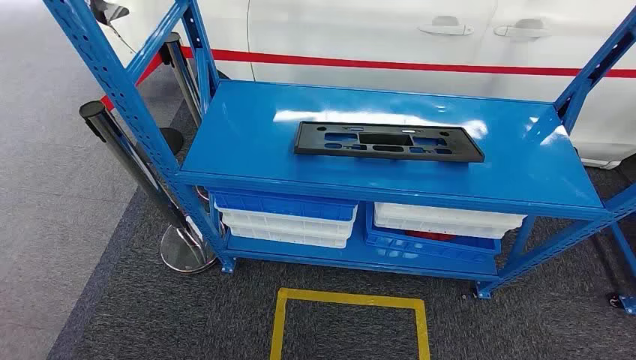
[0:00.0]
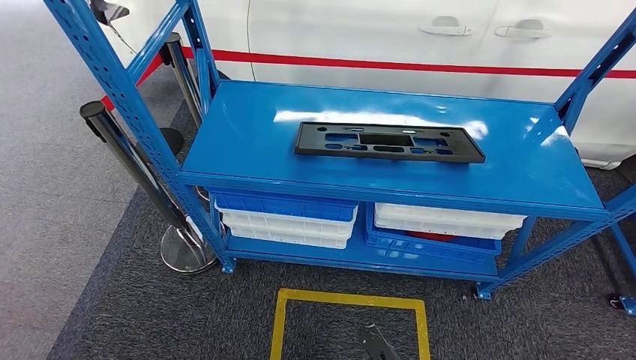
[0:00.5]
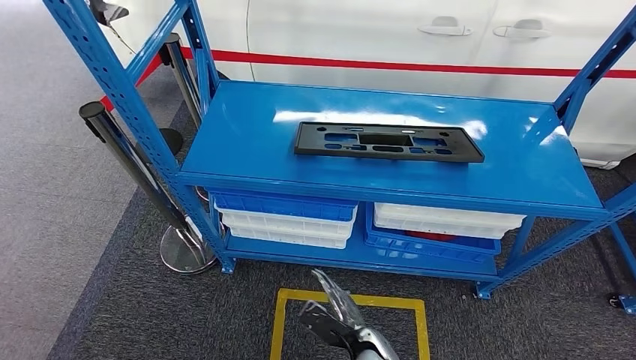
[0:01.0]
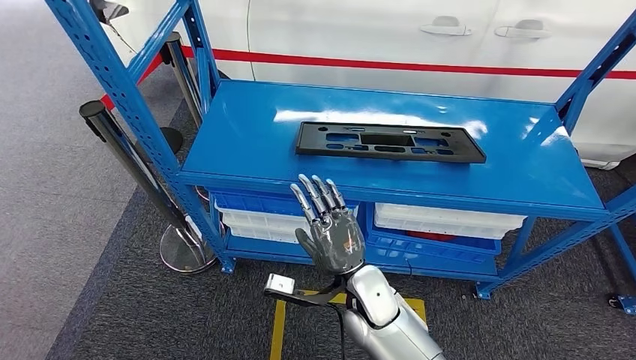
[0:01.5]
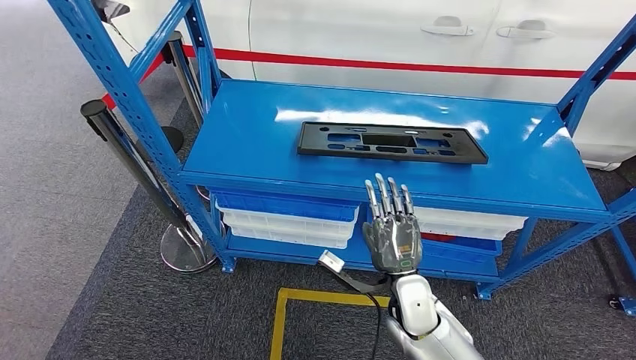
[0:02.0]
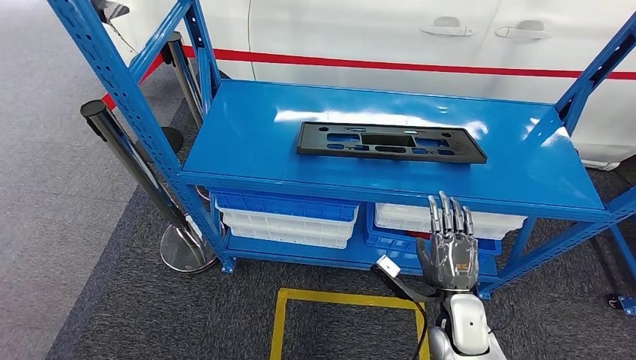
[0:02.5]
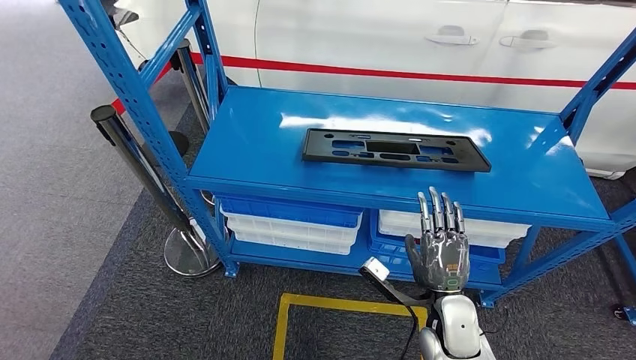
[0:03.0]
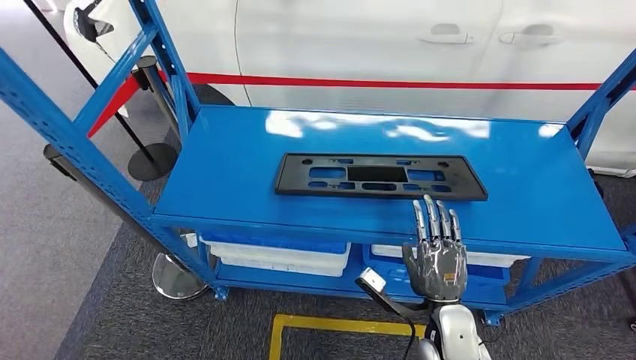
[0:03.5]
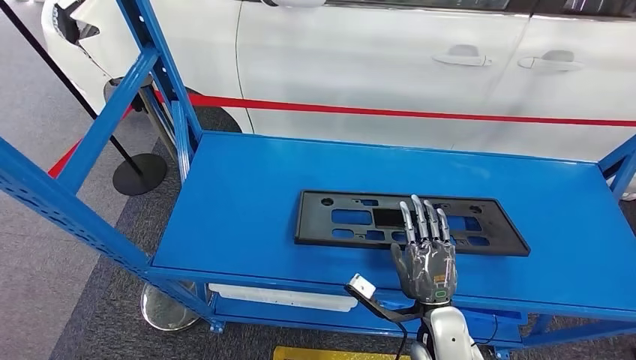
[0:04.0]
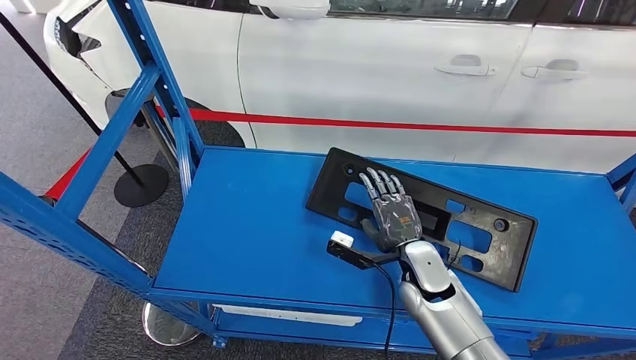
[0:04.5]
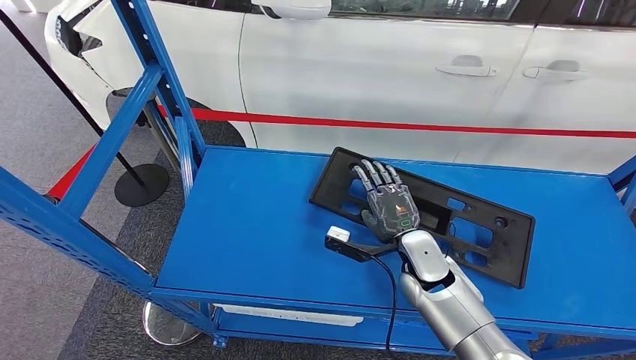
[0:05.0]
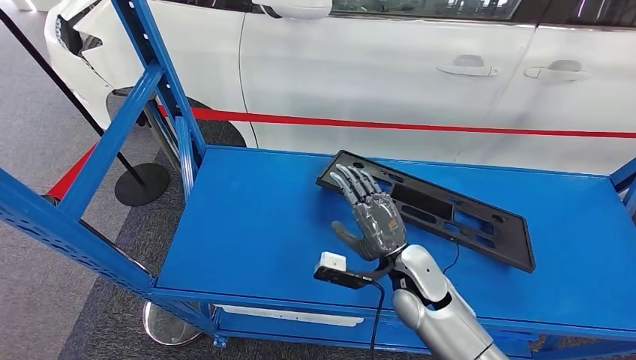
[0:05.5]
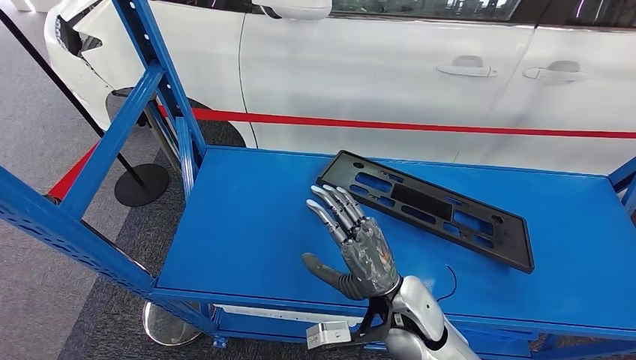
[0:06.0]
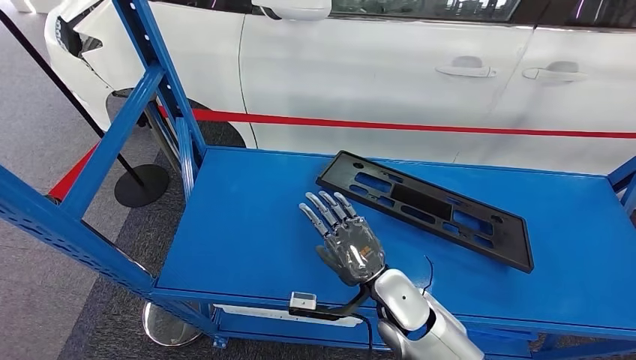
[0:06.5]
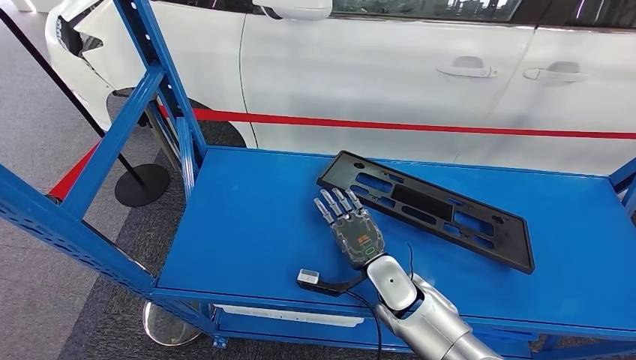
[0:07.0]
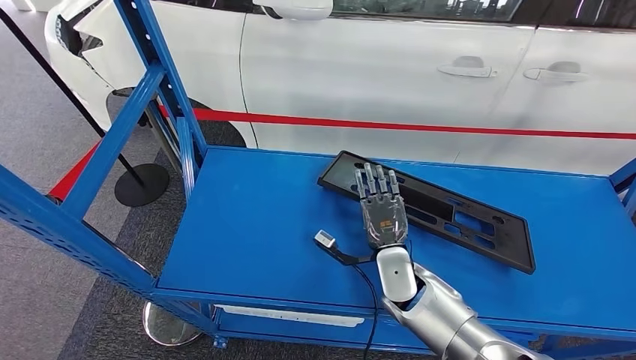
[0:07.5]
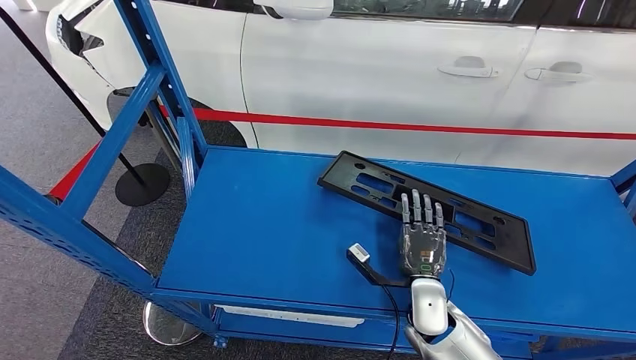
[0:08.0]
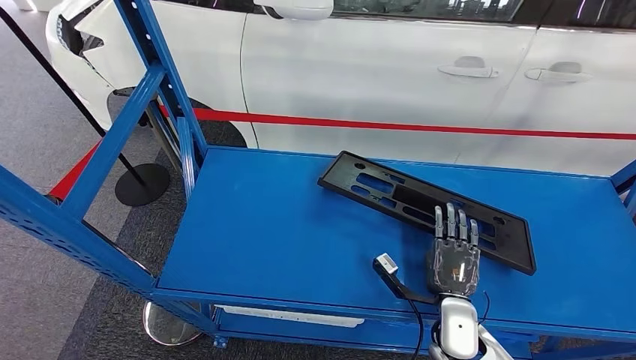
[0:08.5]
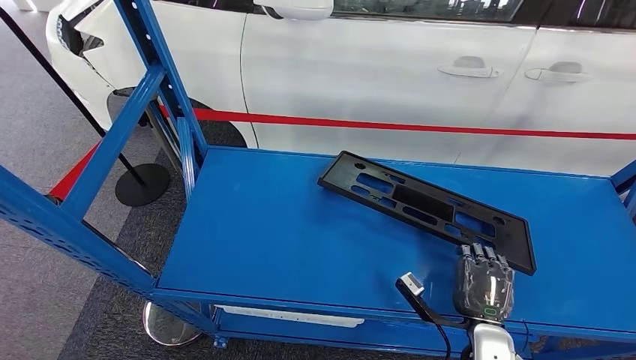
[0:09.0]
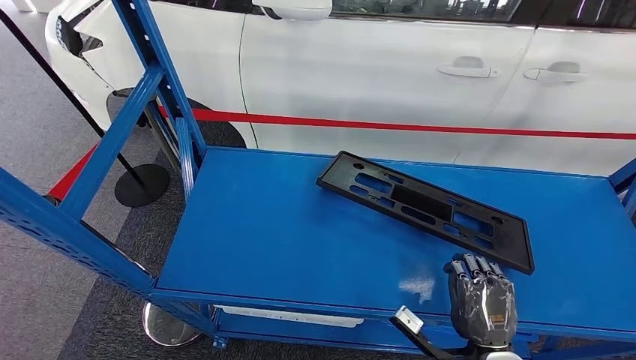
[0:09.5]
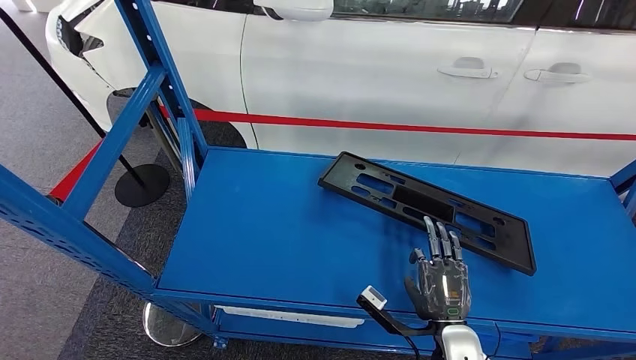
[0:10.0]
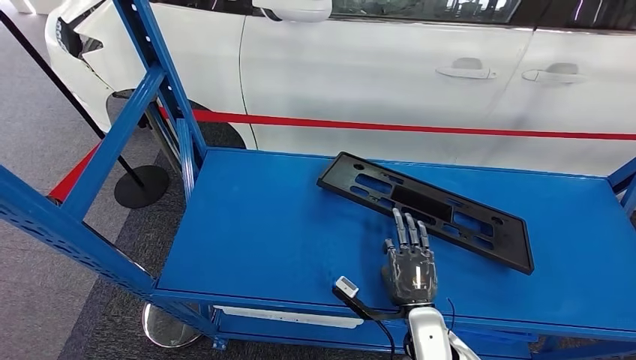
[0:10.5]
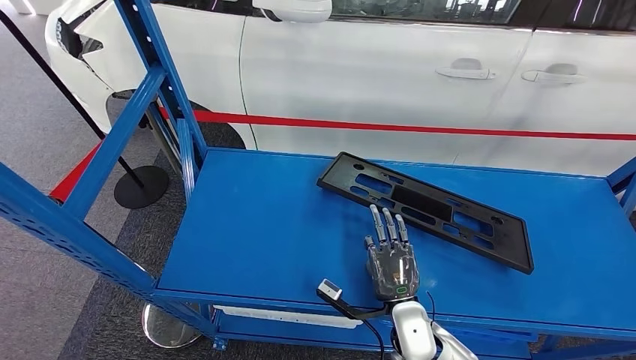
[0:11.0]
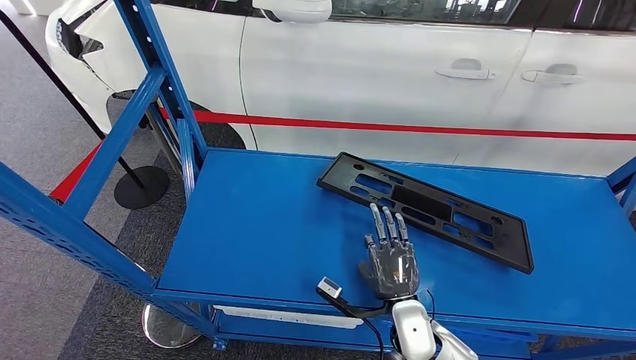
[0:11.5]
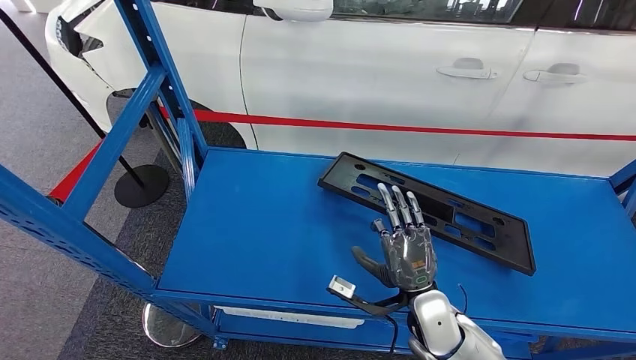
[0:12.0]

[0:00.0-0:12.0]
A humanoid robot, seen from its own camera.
0:06.0 to 0:08.0: The right hand heads downward and to the right, covering roughly 10 cm.
0:08.0 to 0:10.0: The right hand travels backward by approximately 10 cm.
0:10.0 to 0:12.0: The right hand travels forward by about 5 cm.

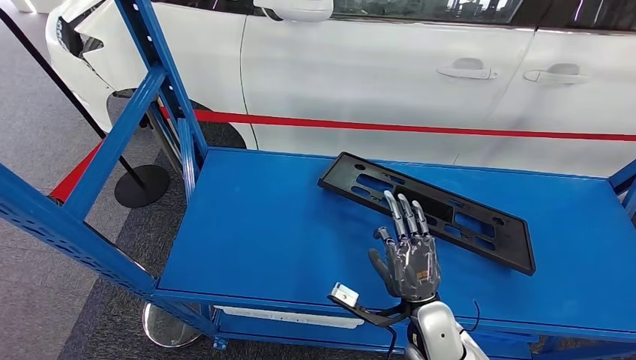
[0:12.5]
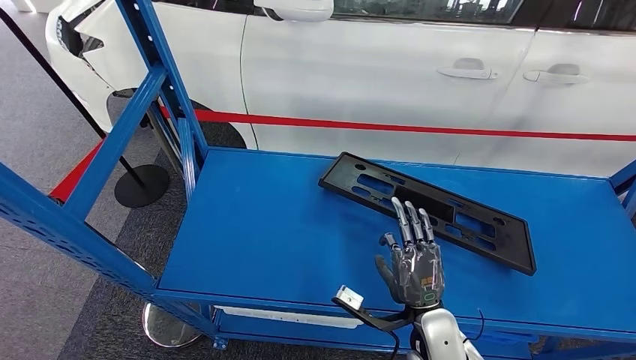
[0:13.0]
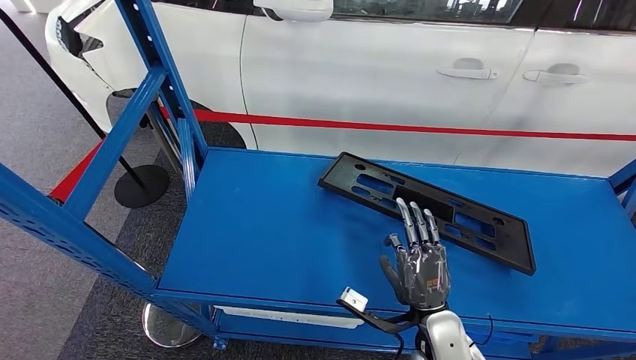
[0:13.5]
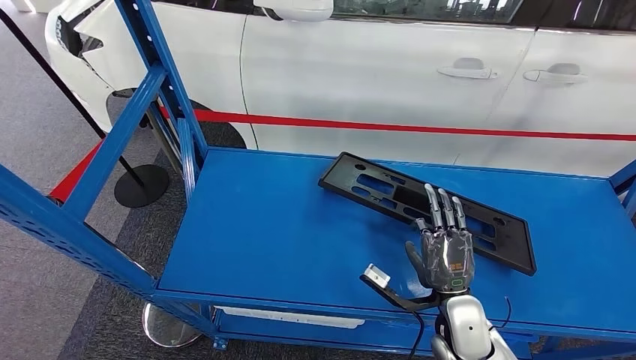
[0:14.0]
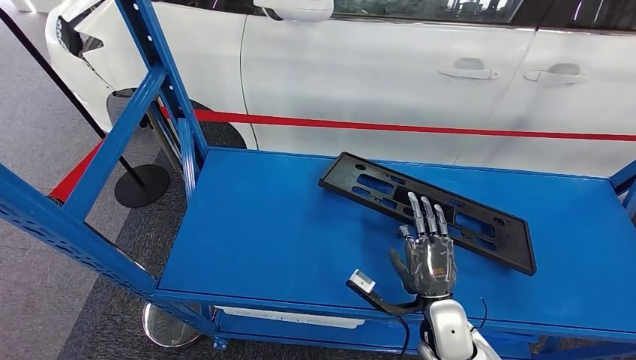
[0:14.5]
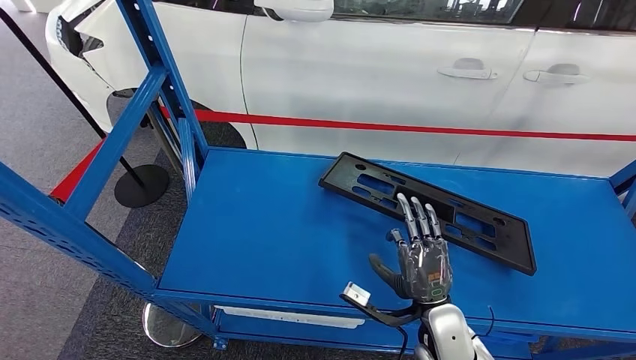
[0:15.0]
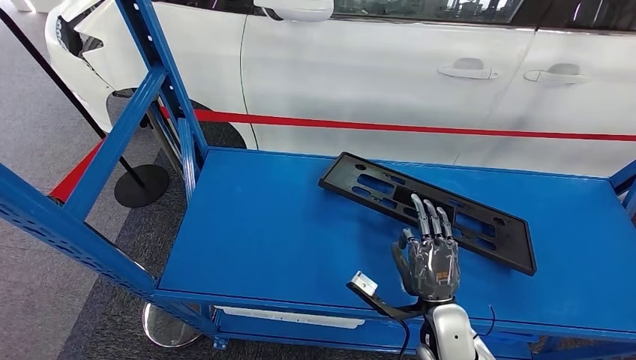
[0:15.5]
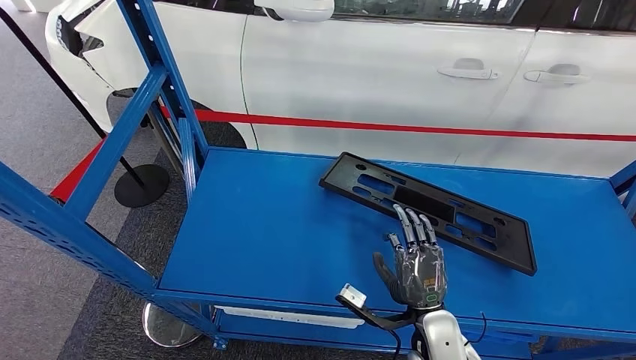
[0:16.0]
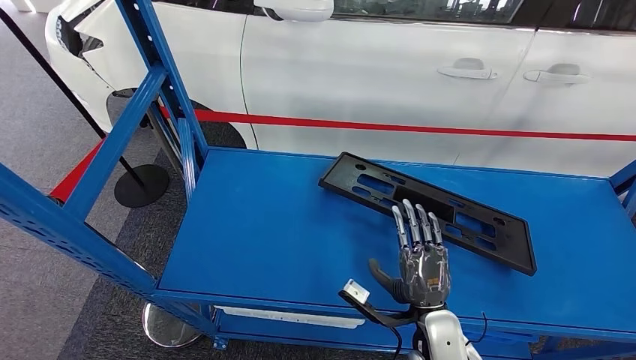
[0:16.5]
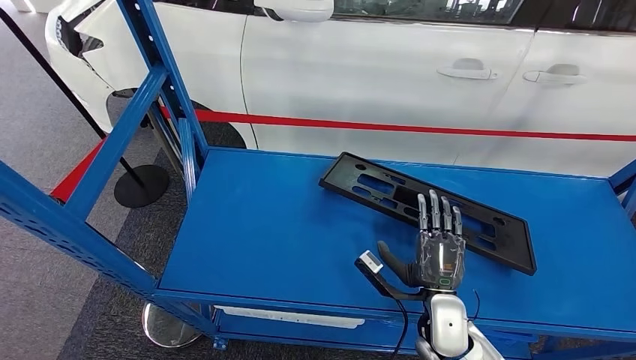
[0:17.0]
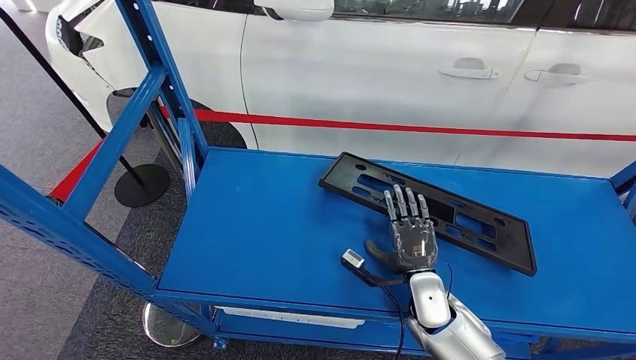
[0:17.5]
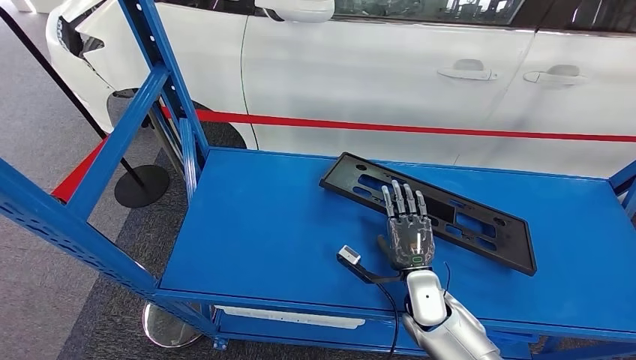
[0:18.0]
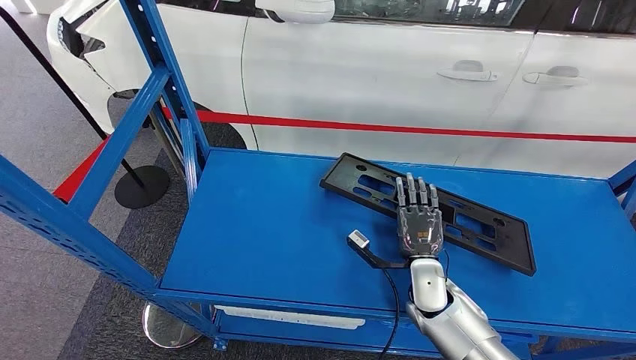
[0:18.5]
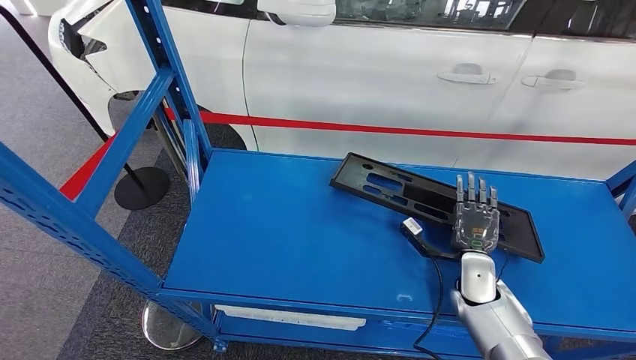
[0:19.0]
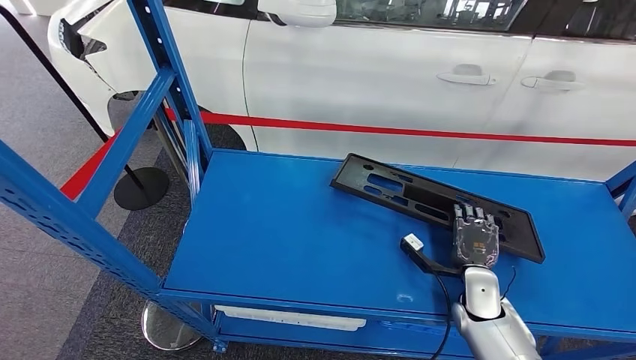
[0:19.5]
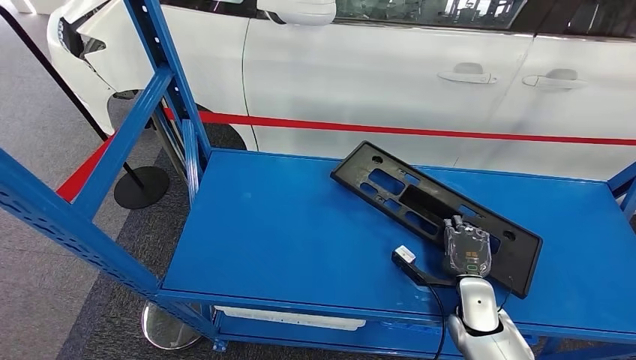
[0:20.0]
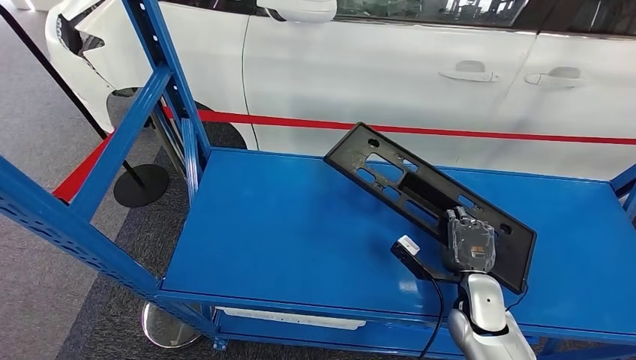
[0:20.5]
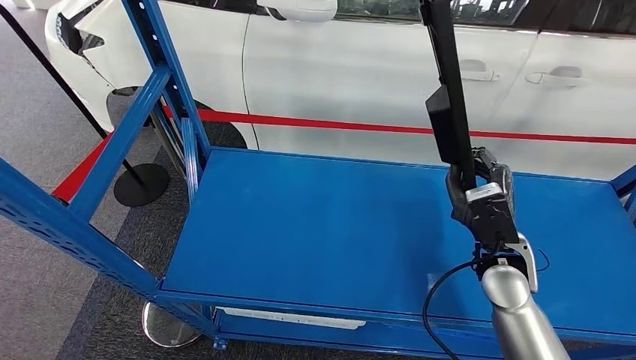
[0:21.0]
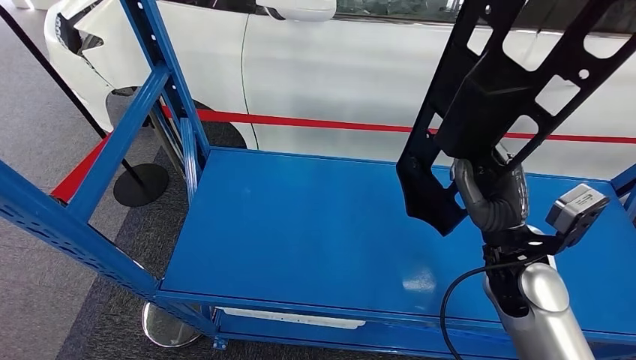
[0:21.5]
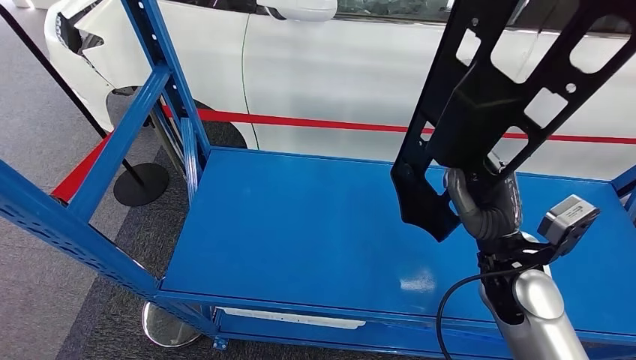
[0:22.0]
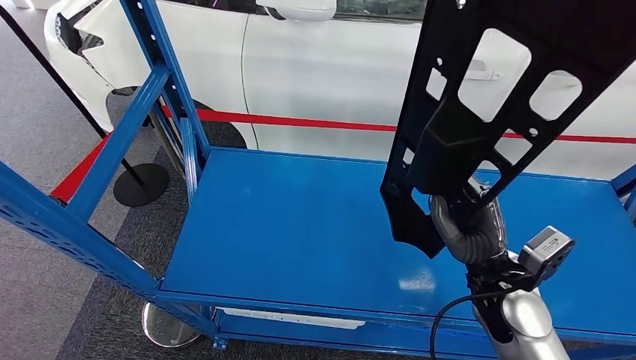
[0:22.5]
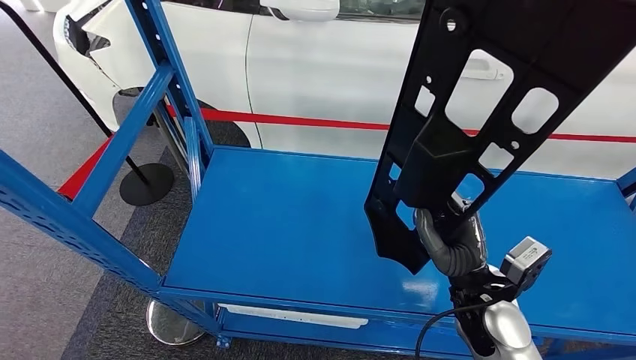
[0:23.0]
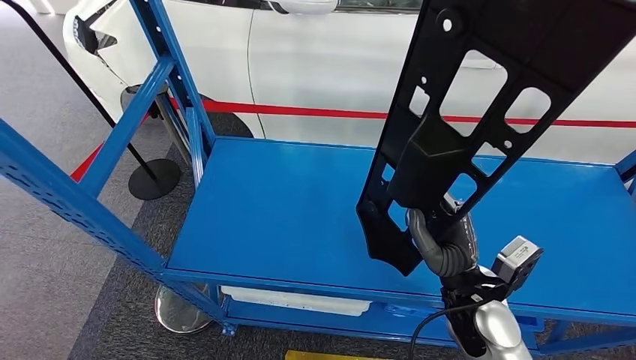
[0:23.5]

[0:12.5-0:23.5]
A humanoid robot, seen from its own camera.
Step, 0:12.5 to 0:22.5: Pick up the large material from the shelf.
0:12.5 to 0:16.0: The hands move only a little.
0:16.0 to 0:18.0: The right hand moves forward, approximately 5 cm.
0:18.0 to 0:20.0: The right hand shifts some 10 cm to the right.
